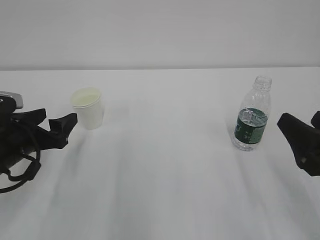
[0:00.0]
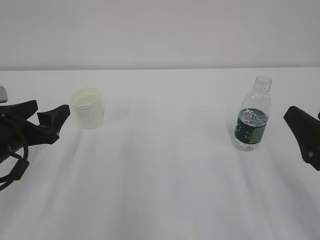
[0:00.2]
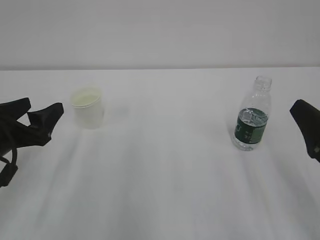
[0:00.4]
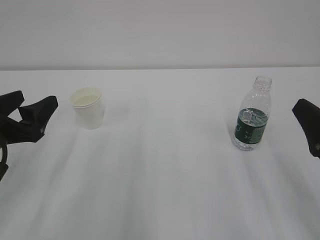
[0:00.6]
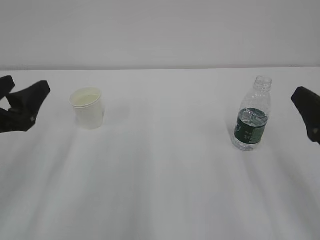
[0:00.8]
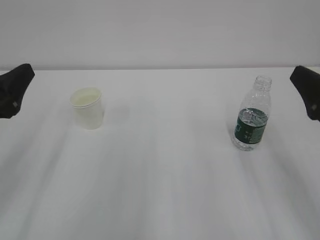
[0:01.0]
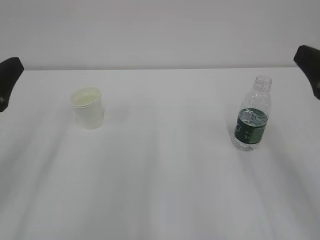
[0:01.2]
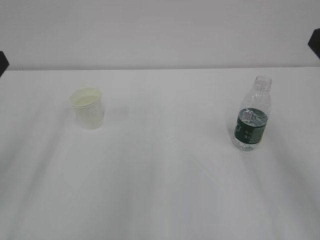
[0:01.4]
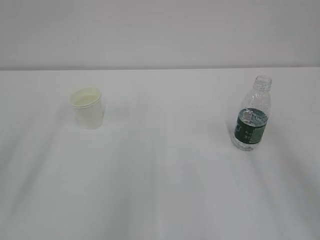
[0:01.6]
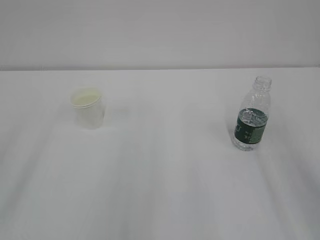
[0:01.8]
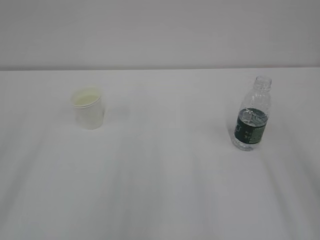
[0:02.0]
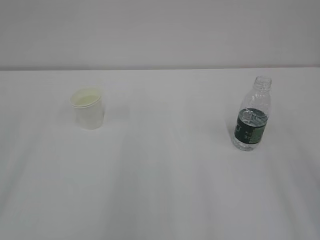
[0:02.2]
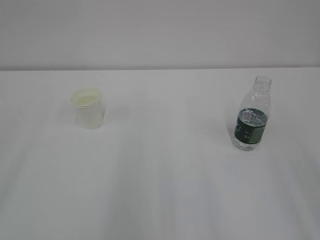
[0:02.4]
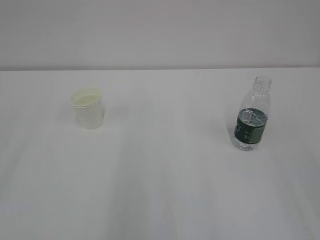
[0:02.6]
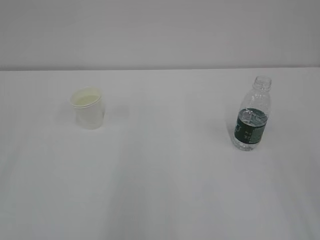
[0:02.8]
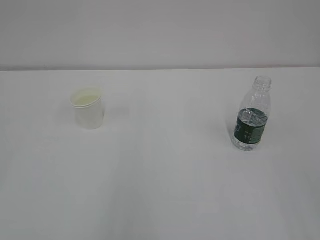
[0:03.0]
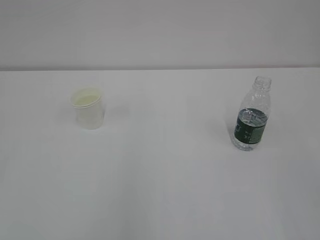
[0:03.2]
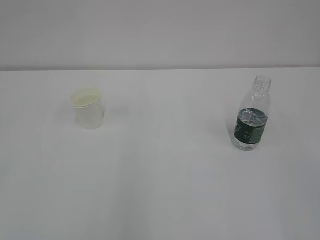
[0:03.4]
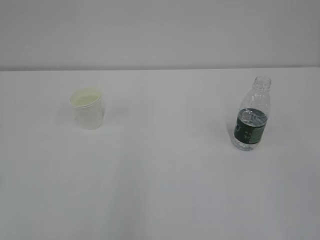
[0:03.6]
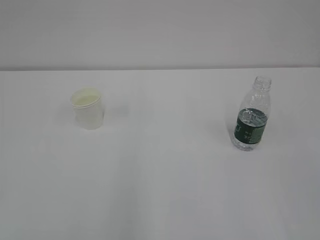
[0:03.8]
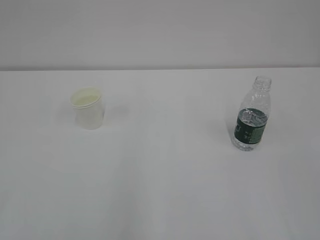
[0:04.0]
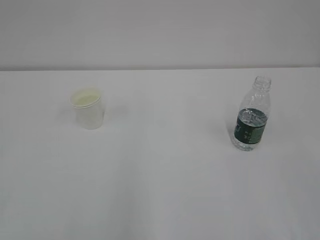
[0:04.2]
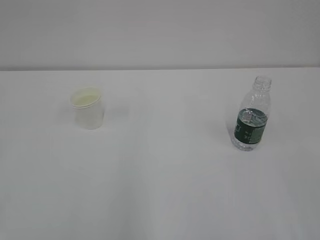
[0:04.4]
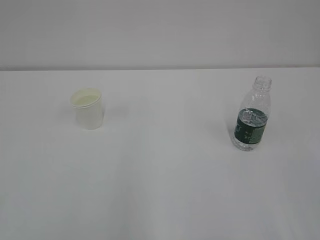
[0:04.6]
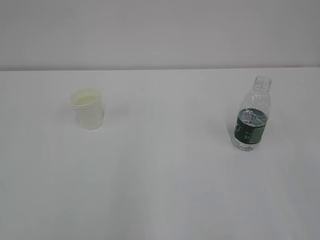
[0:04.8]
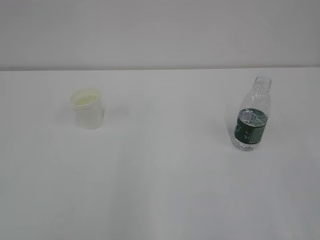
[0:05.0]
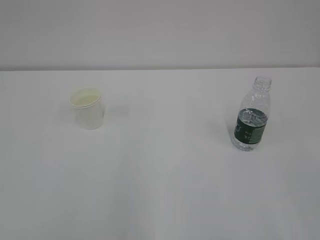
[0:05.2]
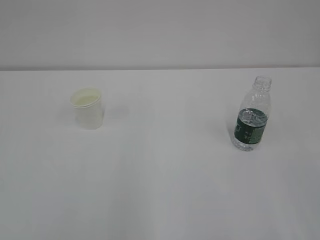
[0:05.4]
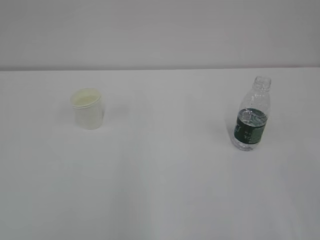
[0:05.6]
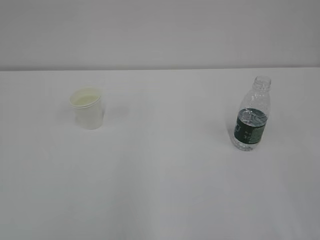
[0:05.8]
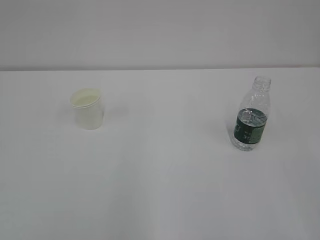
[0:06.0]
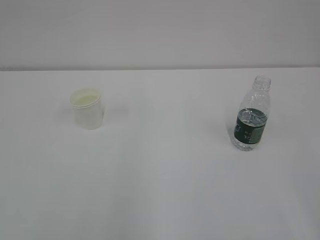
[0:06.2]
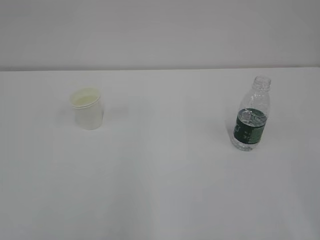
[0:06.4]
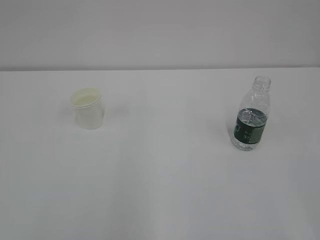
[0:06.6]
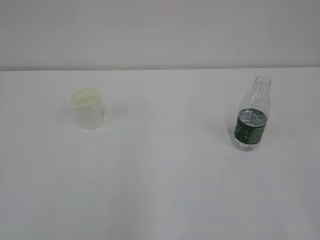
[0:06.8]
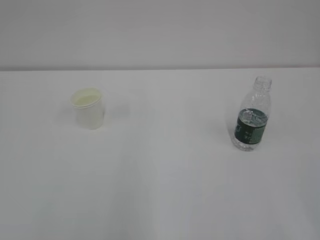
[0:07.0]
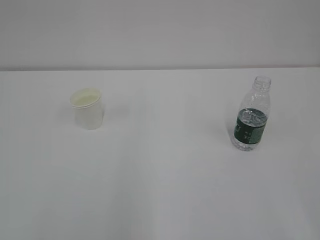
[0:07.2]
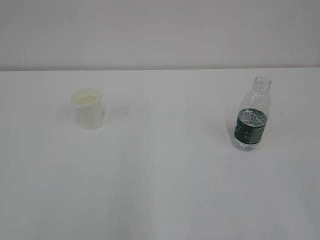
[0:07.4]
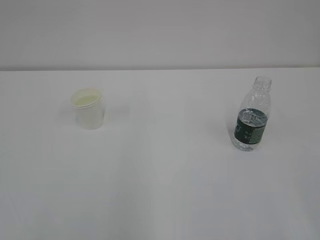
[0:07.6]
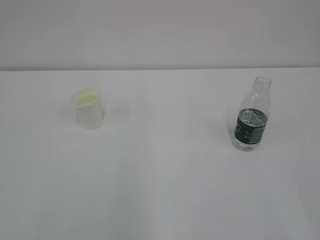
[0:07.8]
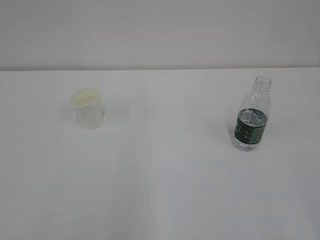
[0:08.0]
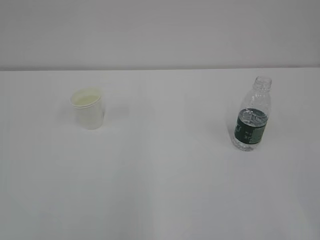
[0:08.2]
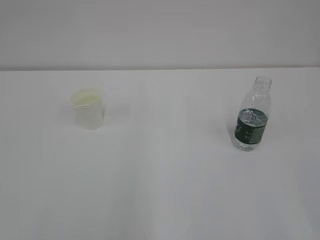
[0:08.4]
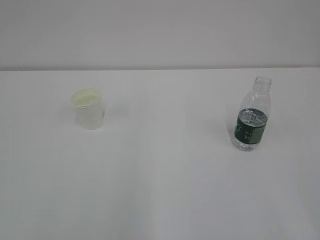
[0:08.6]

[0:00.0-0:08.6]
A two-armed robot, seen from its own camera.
0:00.0 to 0:01.4: The right gripper travels upward by approximately 10 cm; the left gripper moves upward and backward, about 15 cm.
0:07.2 to 0:08.6: Both grippers stay about where they are.
